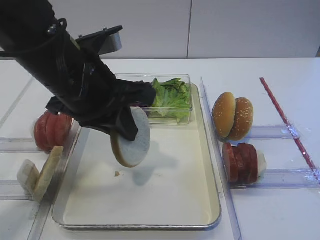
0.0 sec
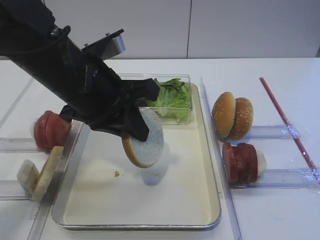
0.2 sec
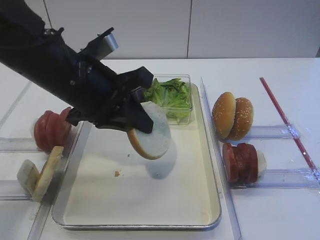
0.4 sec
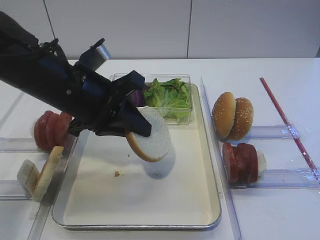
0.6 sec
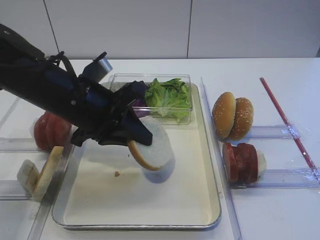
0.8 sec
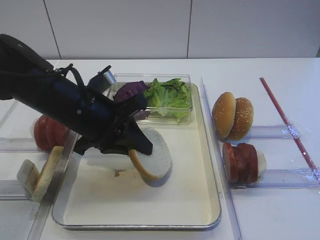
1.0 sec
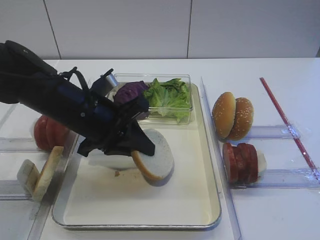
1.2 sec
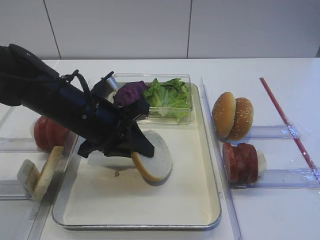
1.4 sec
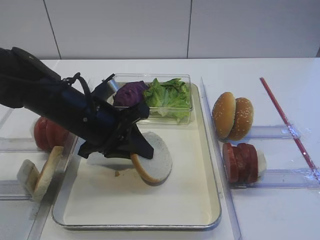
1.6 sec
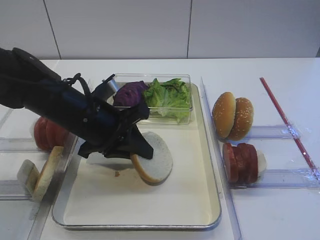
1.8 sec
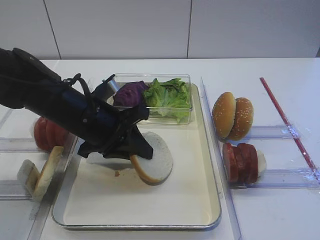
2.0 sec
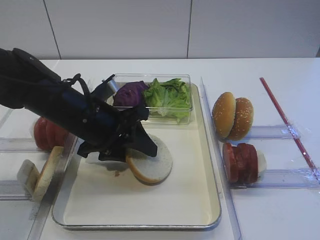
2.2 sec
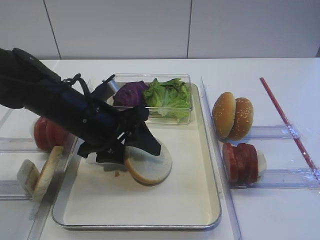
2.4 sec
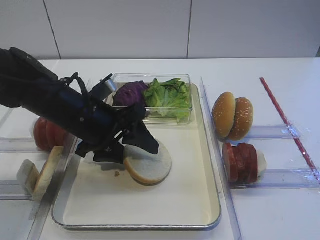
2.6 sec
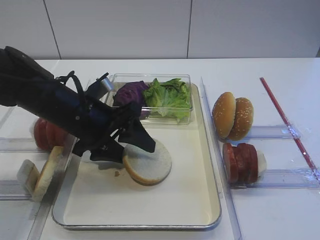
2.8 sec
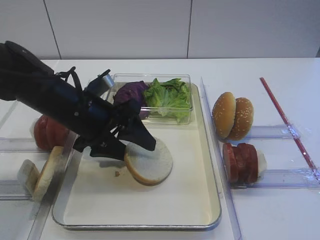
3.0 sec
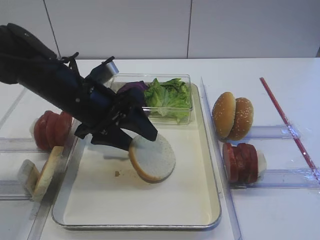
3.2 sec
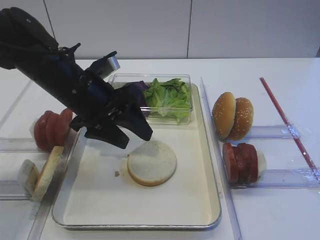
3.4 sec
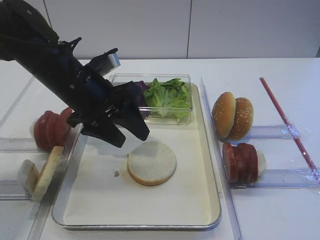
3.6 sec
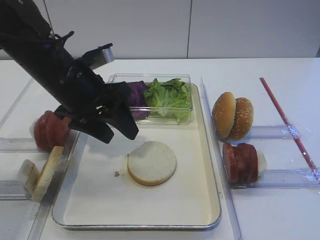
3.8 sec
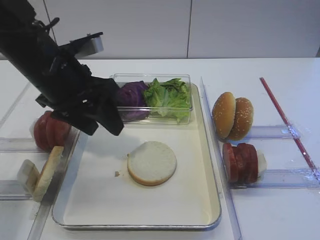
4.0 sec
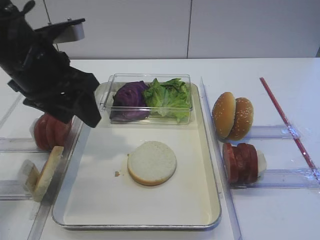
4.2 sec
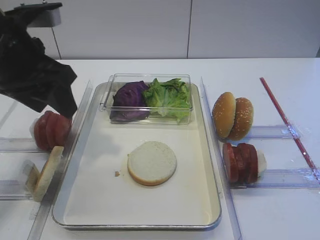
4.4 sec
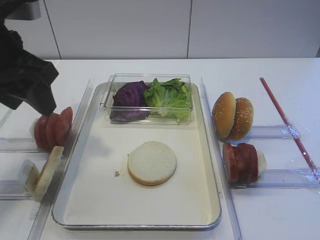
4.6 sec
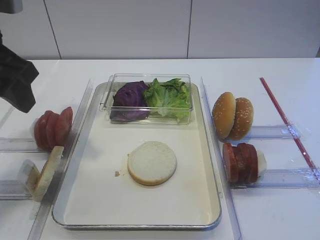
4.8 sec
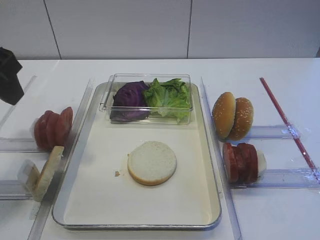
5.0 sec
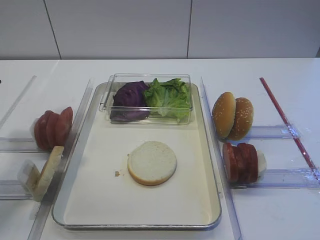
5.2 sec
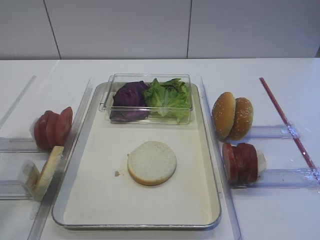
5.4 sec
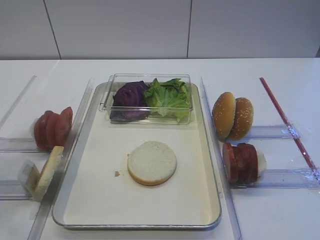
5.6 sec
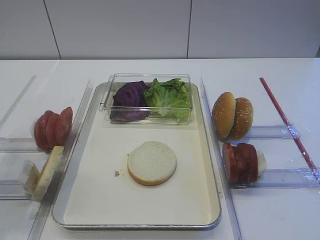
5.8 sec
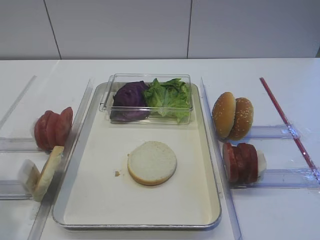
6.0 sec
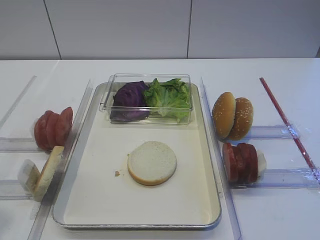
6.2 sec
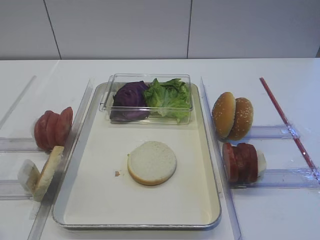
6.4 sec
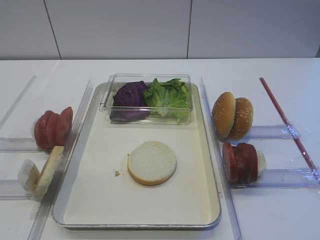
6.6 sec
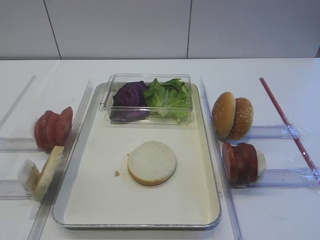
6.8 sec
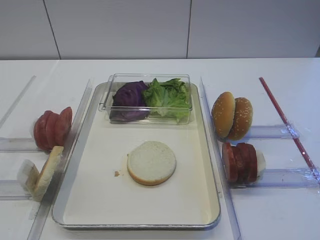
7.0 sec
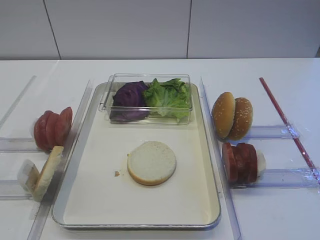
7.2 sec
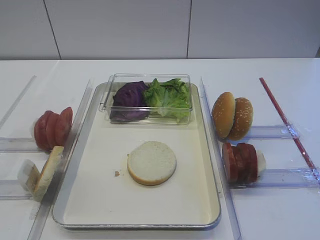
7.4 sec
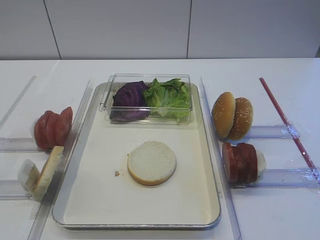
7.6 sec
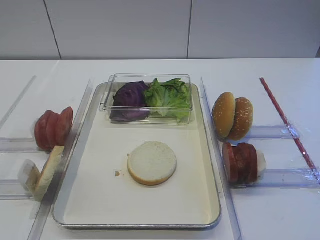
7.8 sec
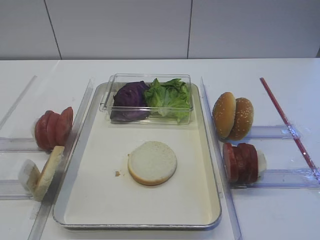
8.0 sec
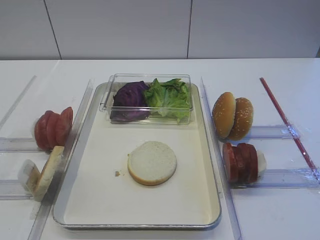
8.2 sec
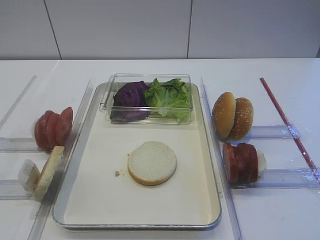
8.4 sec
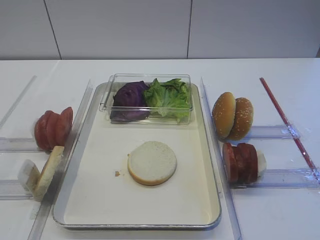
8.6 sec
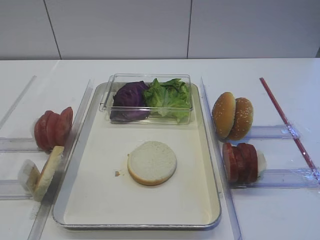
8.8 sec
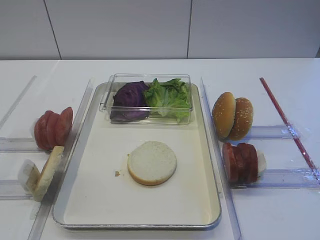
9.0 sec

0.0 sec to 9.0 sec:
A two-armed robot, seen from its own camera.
Step, 0.0 sec to 3.4 sec: Place the bread slice on the tray with the left gripper.
0.0 sec to 1.6 sec: The left gripper goes about 10 cm downward.
1.6 sec to 3.0 sec: The left gripper opens.
3.0 sec to 4.4 sec: The left gripper is displaced upward and to the left by approximately 15 cm.
4.4 sec to 6.0 sec: The left gripper moves backward and to the left, approximately 20 cm.
6.0 sec to 7.6 sec: The left gripper heads backward and downward, covering some 10 cm.

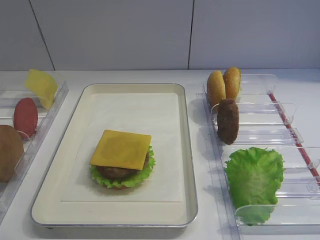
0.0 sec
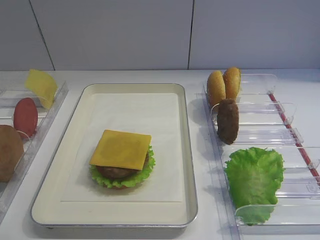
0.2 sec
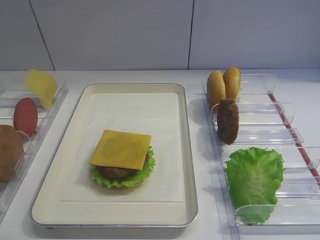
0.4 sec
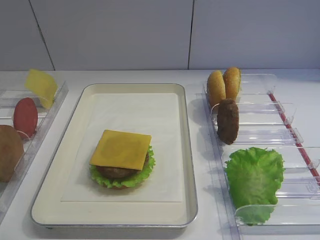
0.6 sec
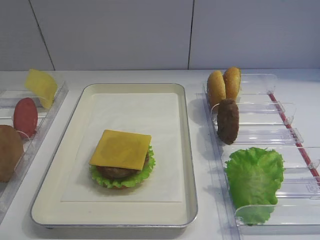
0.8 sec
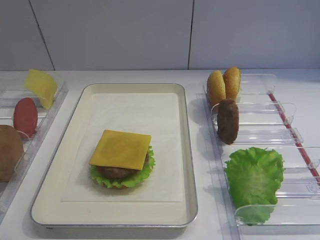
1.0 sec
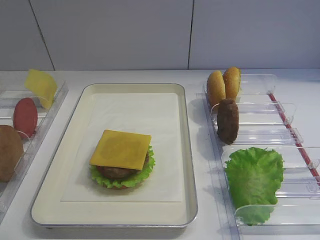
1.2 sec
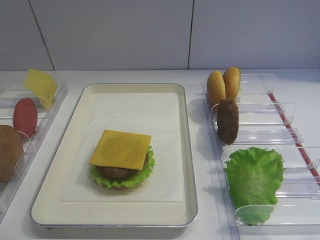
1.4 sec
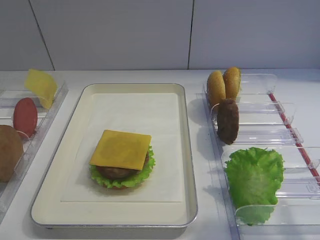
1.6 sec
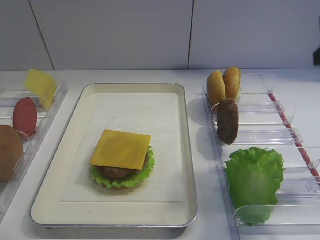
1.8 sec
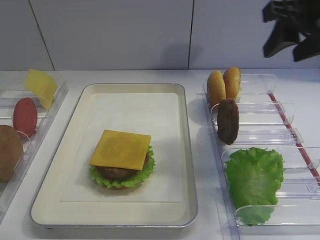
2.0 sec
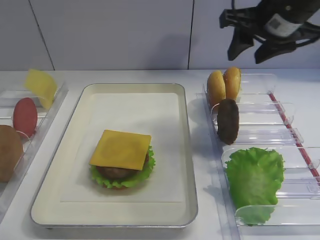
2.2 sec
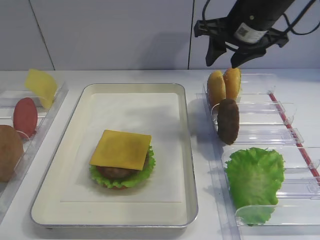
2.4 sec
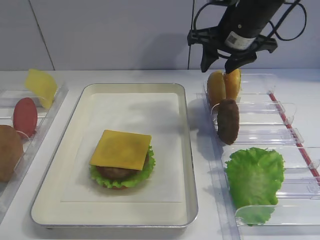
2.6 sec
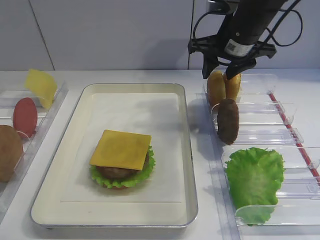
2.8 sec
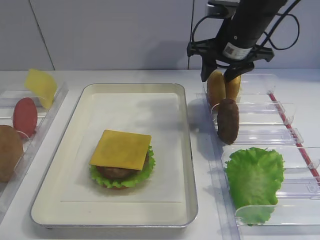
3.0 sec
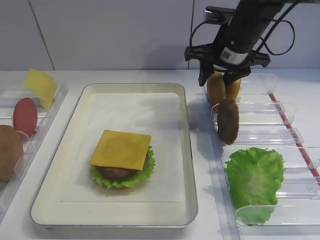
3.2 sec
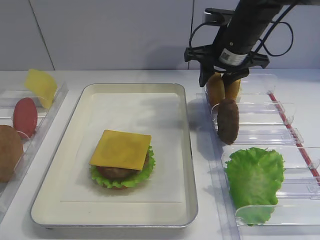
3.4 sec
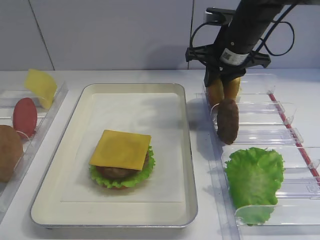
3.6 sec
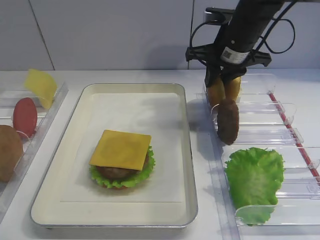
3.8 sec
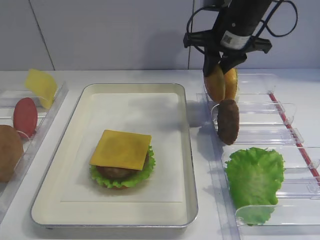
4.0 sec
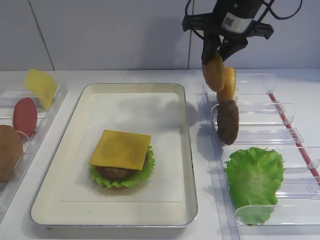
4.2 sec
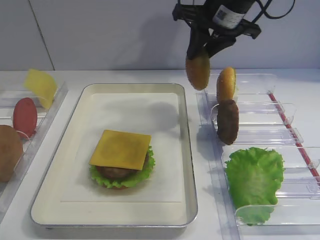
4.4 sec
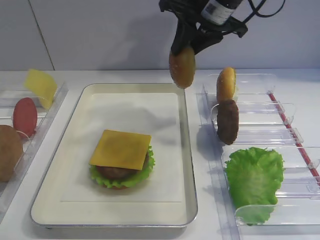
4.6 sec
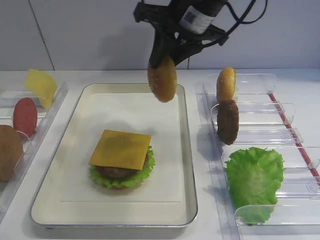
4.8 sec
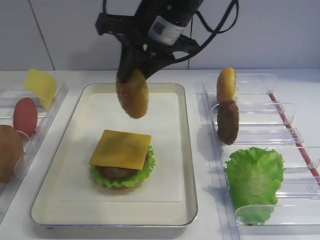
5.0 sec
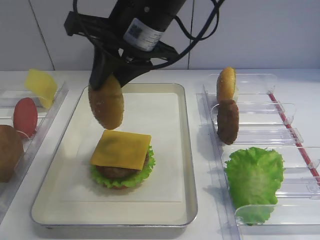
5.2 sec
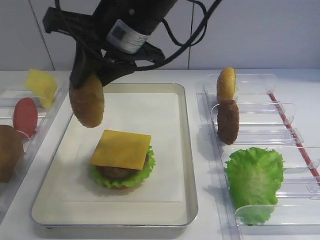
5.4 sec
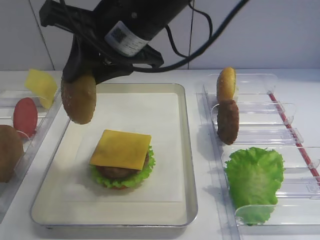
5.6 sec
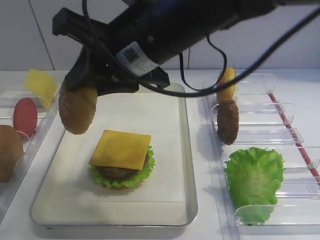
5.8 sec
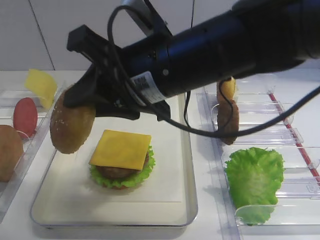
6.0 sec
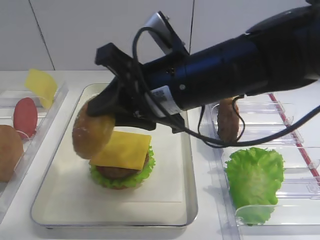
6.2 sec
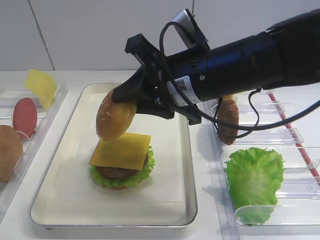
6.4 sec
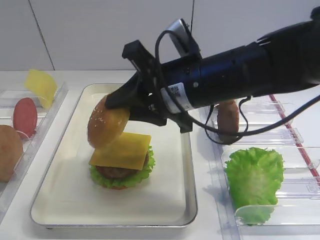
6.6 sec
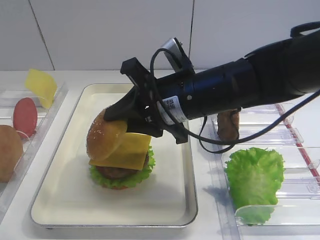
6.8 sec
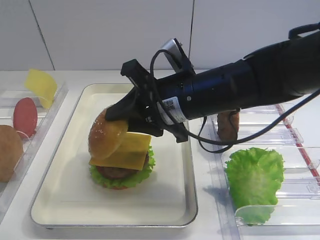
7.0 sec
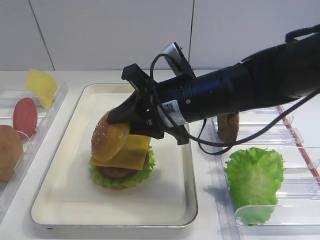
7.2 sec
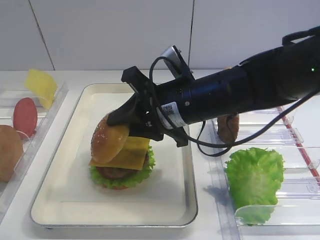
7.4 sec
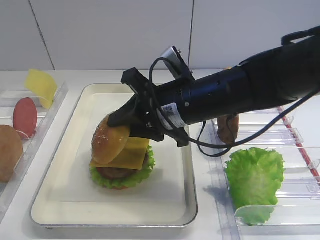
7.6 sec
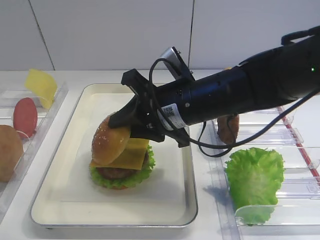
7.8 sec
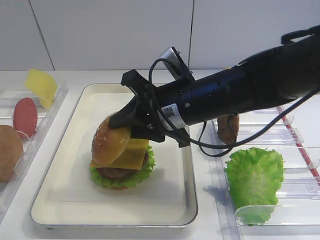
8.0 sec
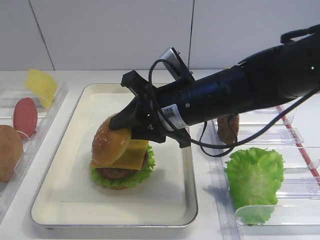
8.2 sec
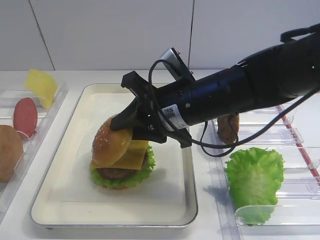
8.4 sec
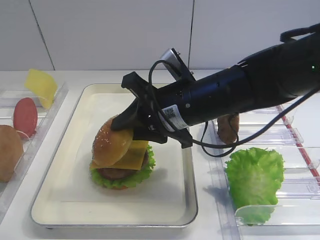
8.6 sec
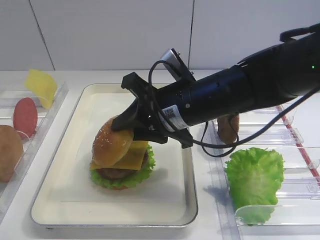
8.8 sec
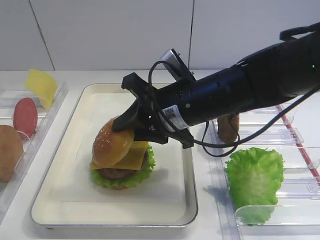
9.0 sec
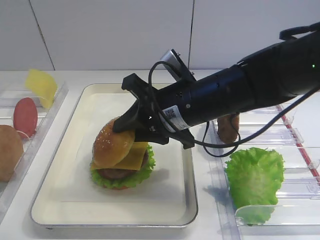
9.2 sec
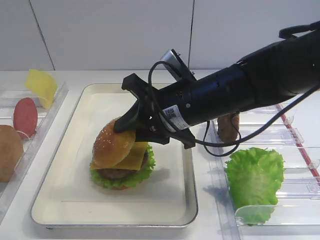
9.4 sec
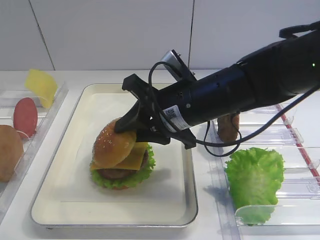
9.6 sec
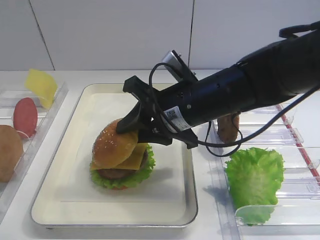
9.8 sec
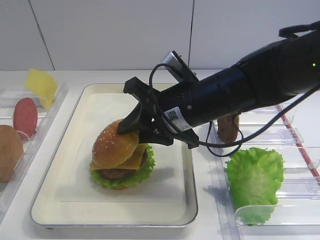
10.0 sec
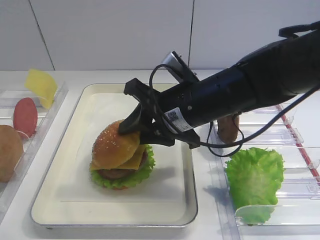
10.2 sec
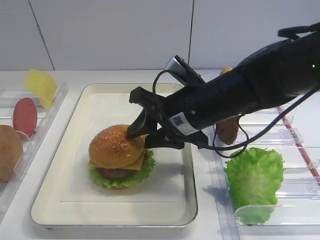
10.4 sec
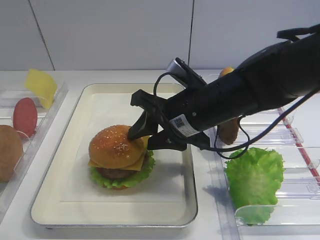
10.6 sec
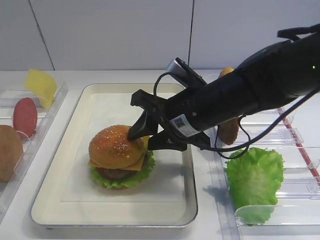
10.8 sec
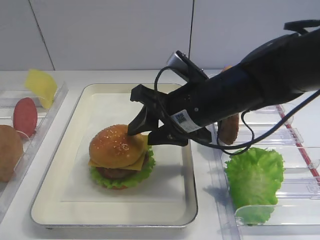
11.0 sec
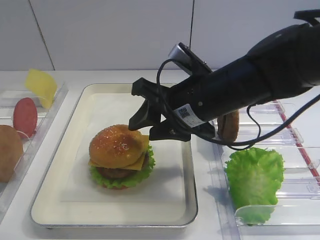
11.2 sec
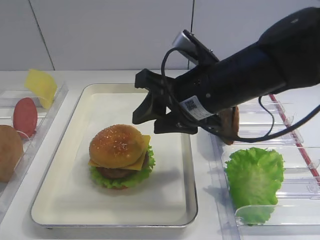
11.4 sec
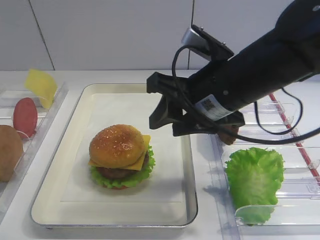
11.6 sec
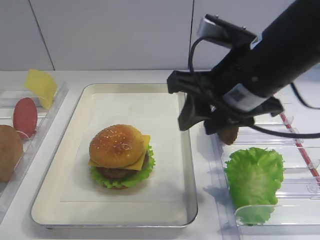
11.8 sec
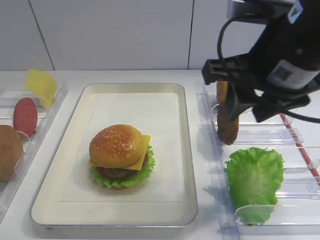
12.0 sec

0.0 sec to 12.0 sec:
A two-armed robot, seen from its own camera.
Step, 0.0 sec to 4.0 sec: Pick up the hamburger lid with the right gripper.
Step, 4.2 sec to 11.4 sec: Place the hamburger lid on the cheese slice with the right gripper.
1.6 sec to 3.0 sec: The right gripper moves forward and to the left, approximately 30 cm.
3.0 sec to 4.4 sec: The right gripper is displaced upward by roughly 5 cm, and closes.
4.4 sec to 6.0 sec: The right gripper shifts approximately 20 cm backward and to the left.
6.0 sec to 7.6 sec: The right gripper moves downward, roughly 10 cm.
7.6 sec to 9.0 sec: There are only small adjustments of the grippers.
9.0 sec to 10.4 sec: The right gripper opens its fingers.
10.4 sec to 12.0 sec: The right gripper travels upward, to the right and backward by some 15 cm.

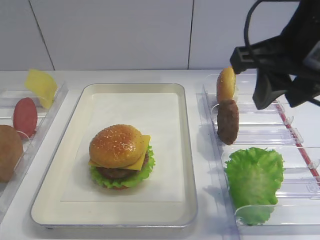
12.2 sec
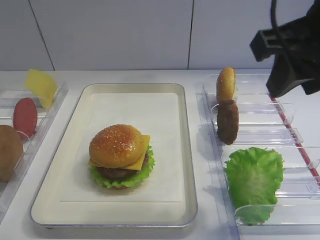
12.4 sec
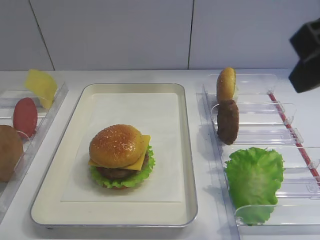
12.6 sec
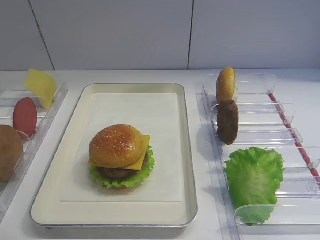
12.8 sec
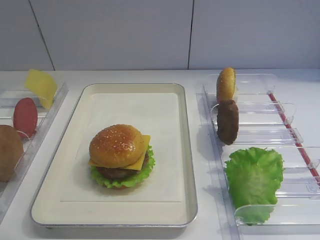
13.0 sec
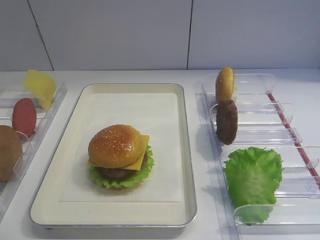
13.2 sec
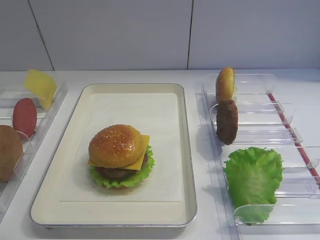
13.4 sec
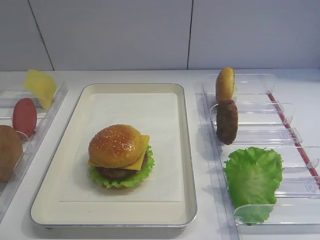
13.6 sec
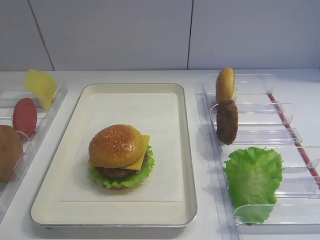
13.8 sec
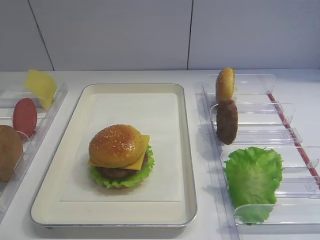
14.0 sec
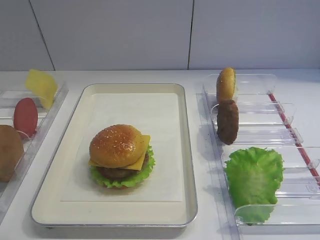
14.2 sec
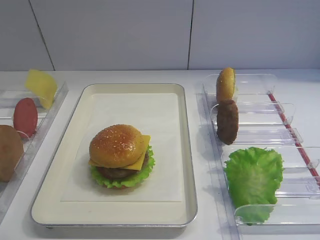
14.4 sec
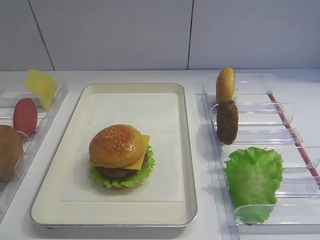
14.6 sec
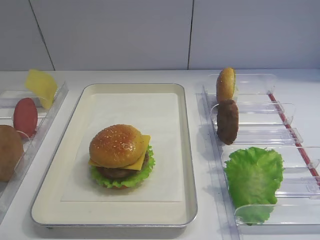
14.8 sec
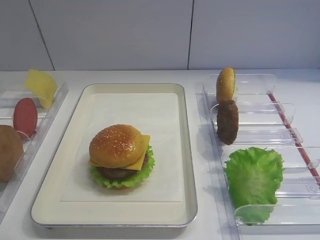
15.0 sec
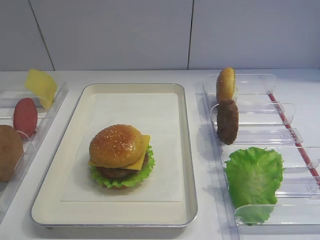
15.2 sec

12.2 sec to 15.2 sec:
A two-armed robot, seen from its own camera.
12.2 sec to 13.8 sec: The right gripper shifts about 25 cm backward and to the right.
